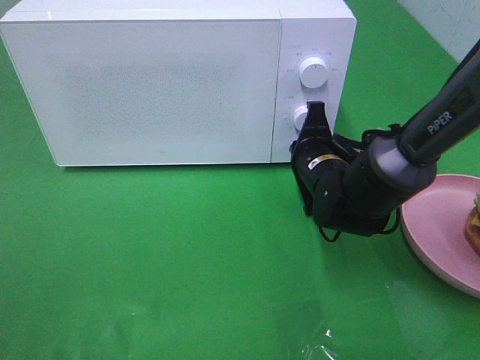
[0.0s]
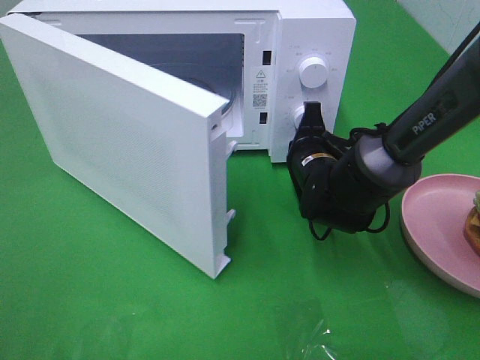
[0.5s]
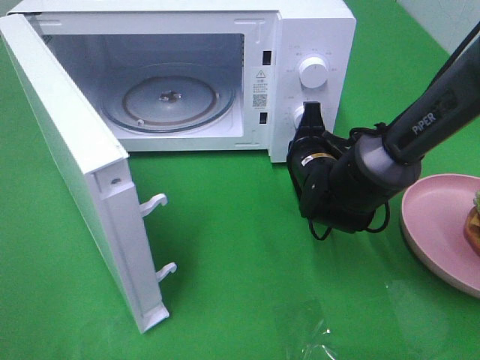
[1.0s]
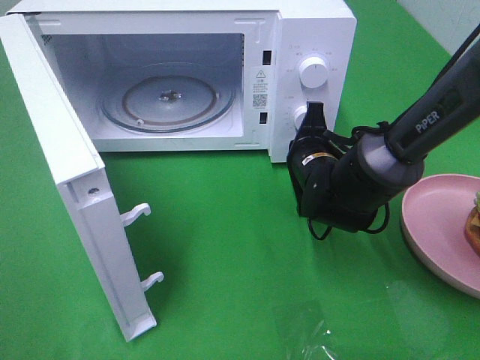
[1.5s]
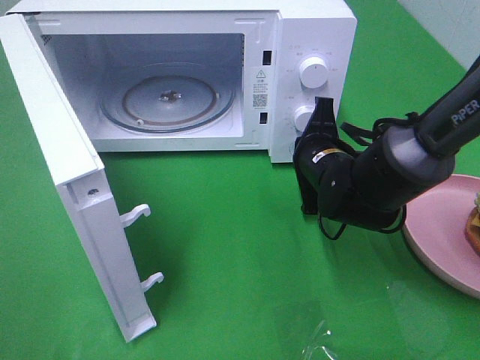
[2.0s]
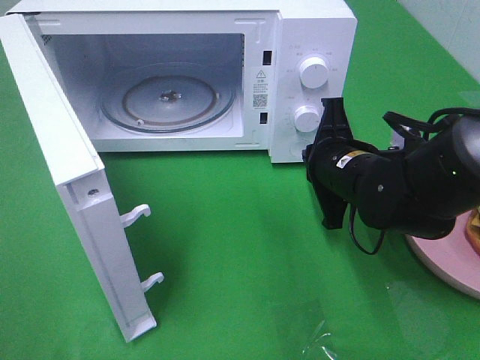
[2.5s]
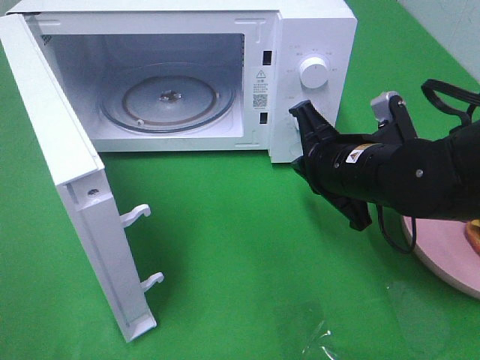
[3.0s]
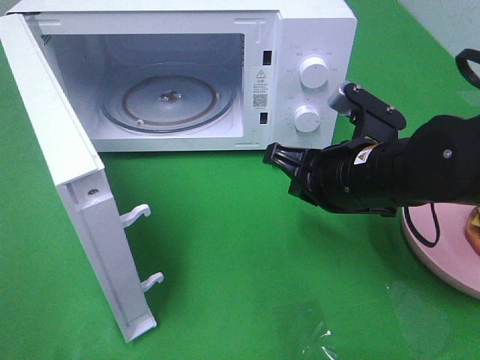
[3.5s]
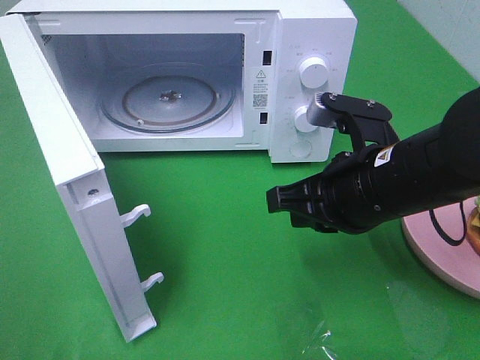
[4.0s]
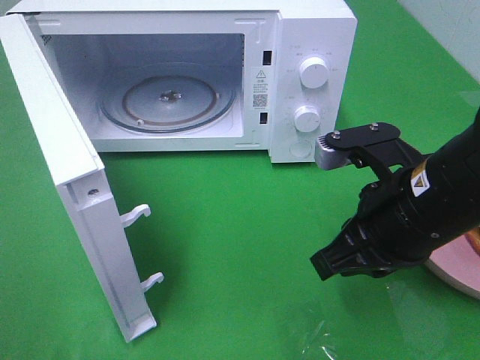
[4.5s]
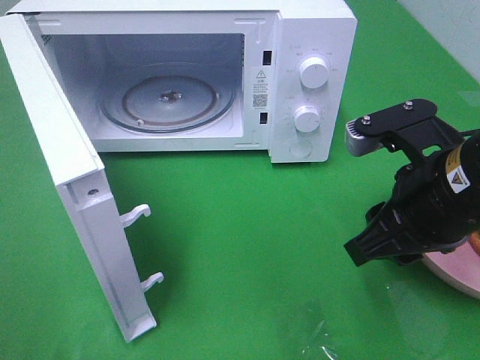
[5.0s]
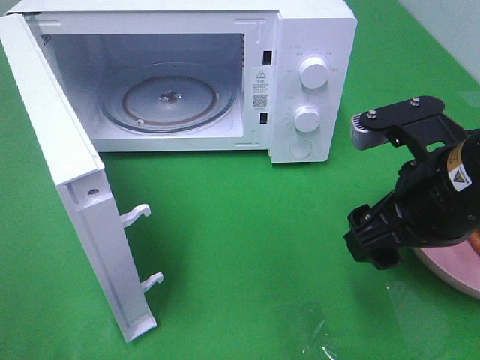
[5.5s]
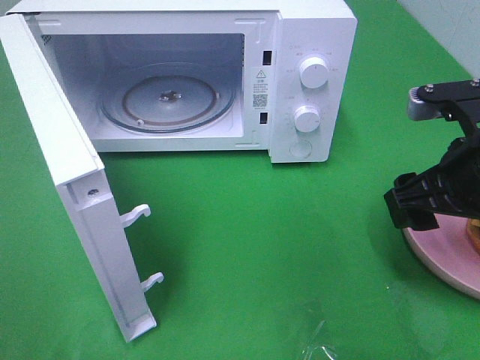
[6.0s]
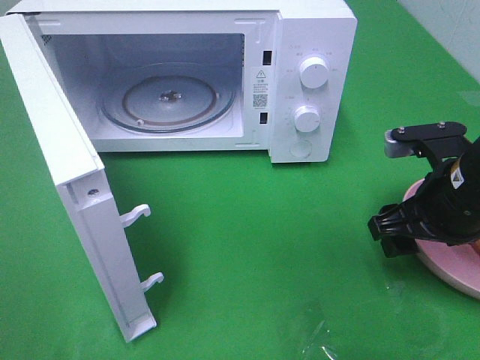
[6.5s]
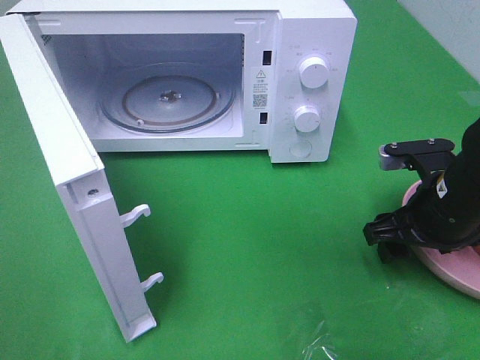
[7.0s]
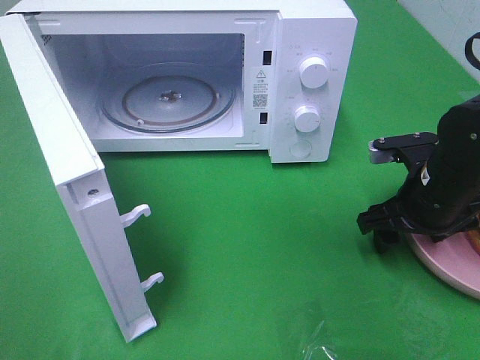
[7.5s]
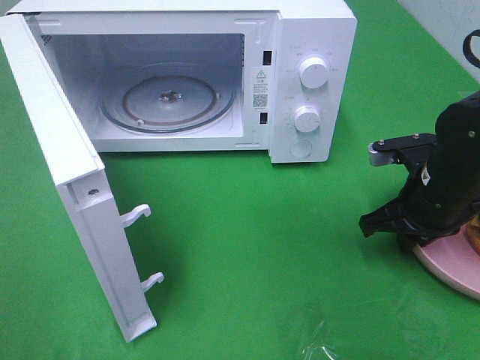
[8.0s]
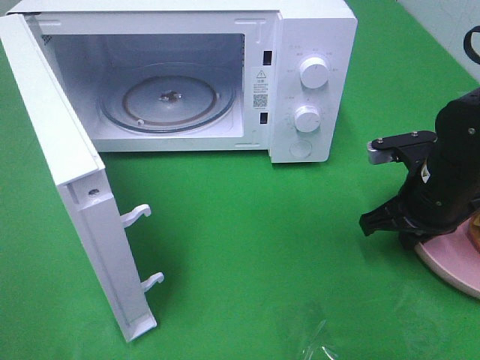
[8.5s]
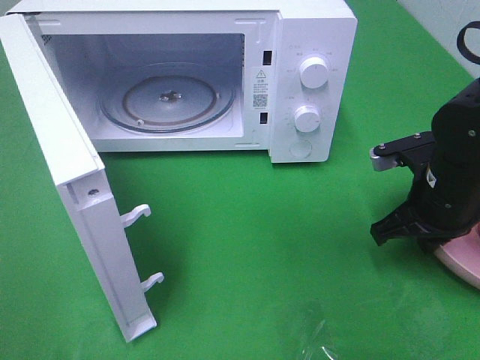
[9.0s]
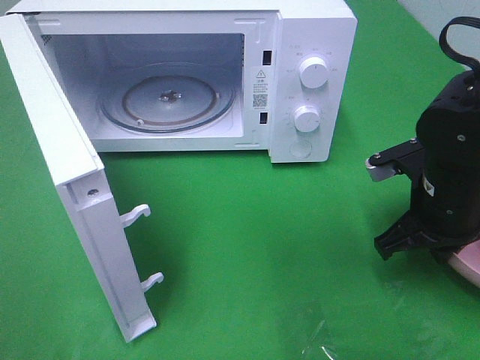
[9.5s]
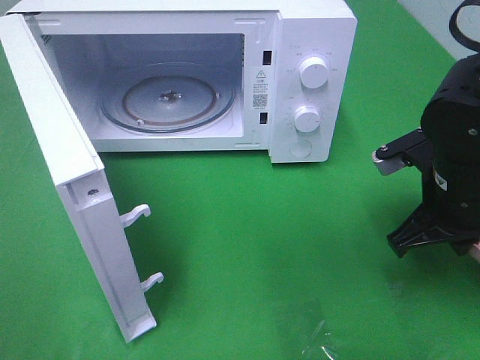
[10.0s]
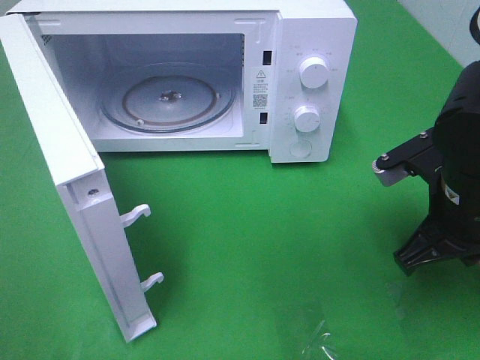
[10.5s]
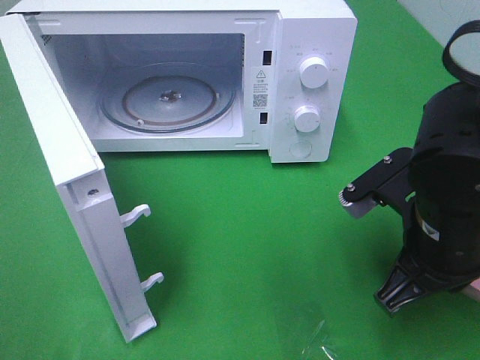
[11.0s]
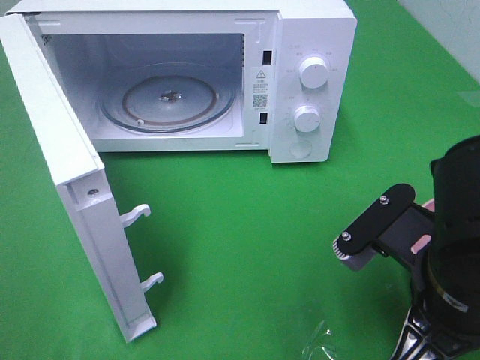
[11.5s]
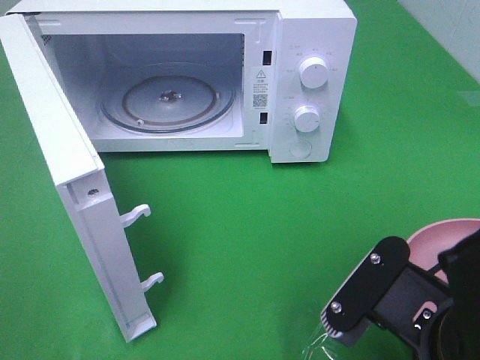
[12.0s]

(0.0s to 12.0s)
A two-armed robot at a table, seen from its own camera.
Task of the whole recording: Heat the burger.
Step, 0.0s - 2.0s: Right hand: press the switch.
Step, 2.5s - 8.0s: Right hand: grab the plate with the hamburger.
2.0s - 4.0s: The right gripper travels backward and upward by about 15 cm.
4.0s - 6.0s: The right gripper is displaced to the right by roughly 10 cm, and opens.
6.0s - 8.0s: The right gripper is displaced downward and forward by about 10 cm, and closes up.
8.0s - 10.0s: The right gripper ends up approximately 5 cm from where it was.
10.0s - 12.0s: The right gripper is displaced backward and to the left by approximately 20 cm.

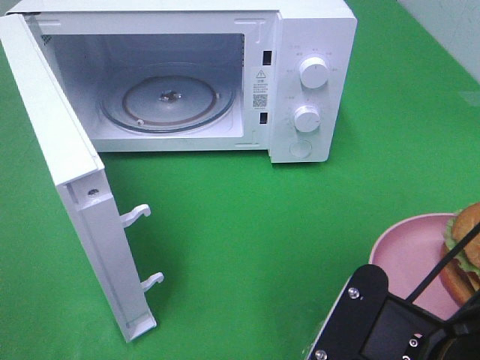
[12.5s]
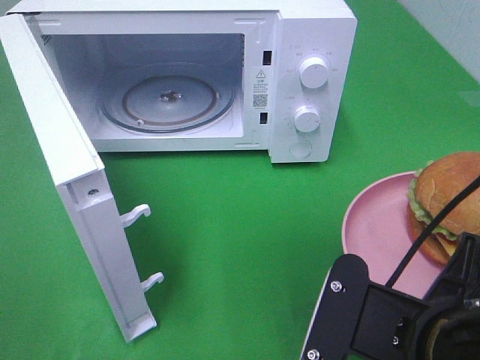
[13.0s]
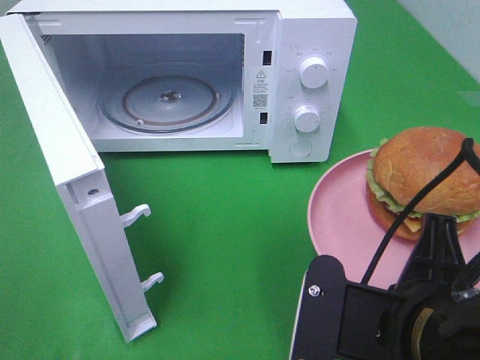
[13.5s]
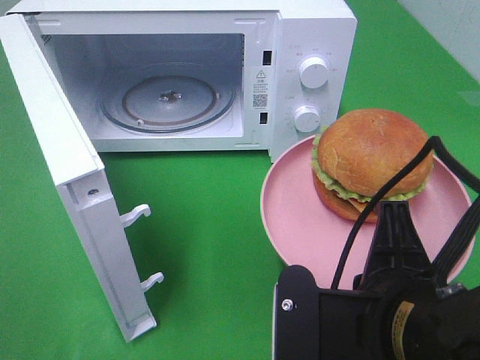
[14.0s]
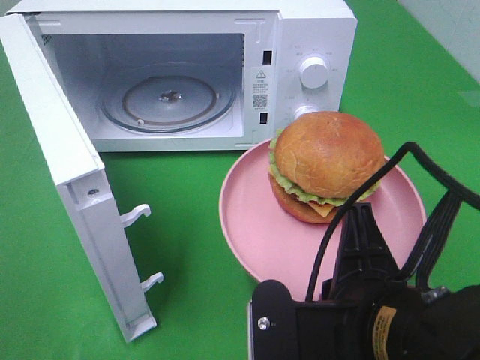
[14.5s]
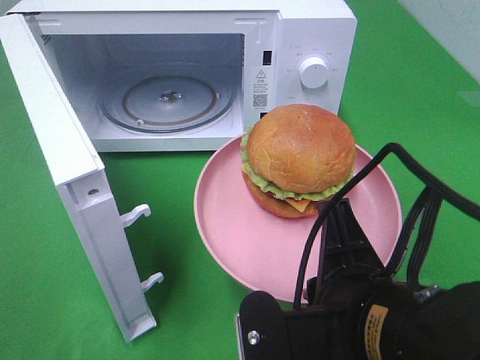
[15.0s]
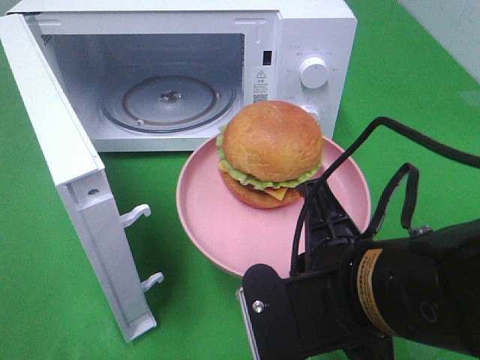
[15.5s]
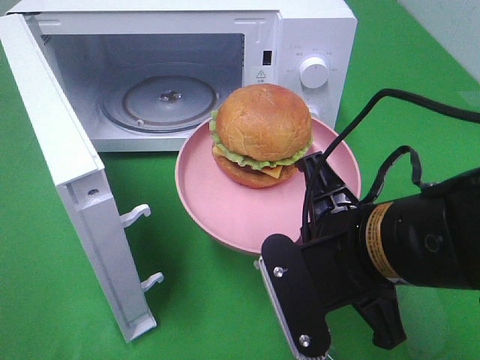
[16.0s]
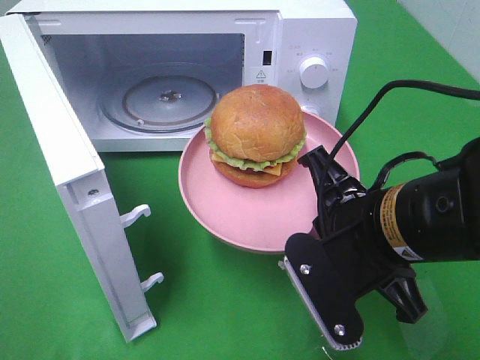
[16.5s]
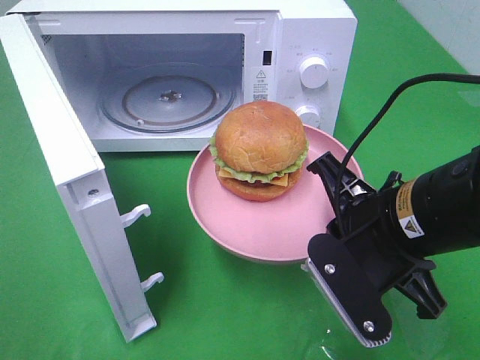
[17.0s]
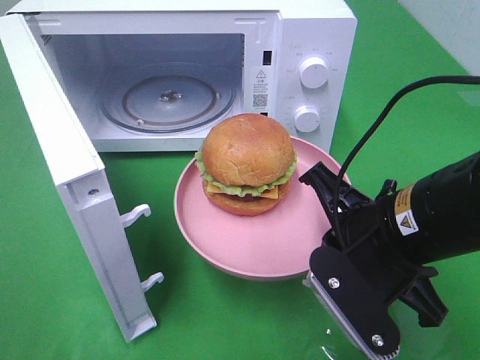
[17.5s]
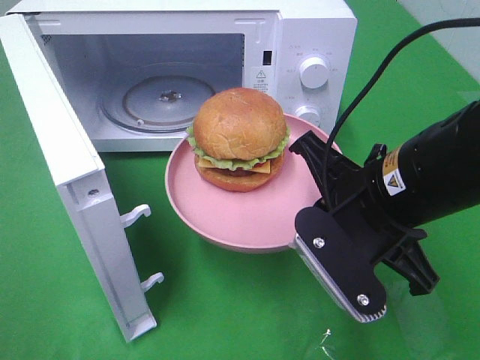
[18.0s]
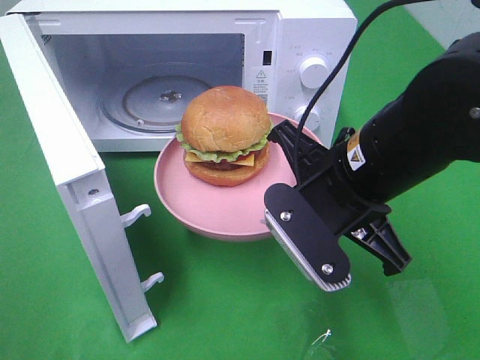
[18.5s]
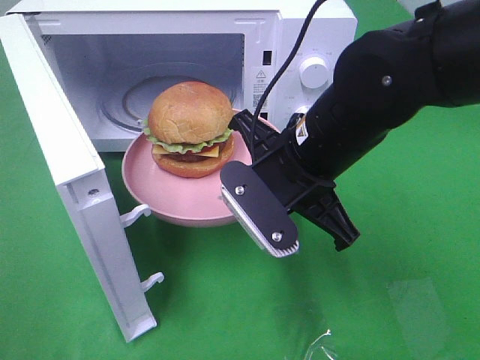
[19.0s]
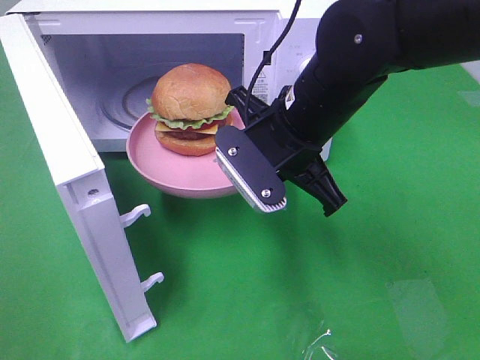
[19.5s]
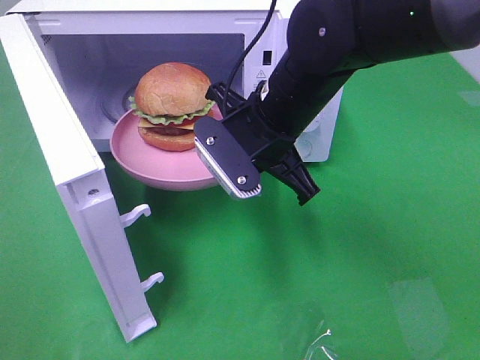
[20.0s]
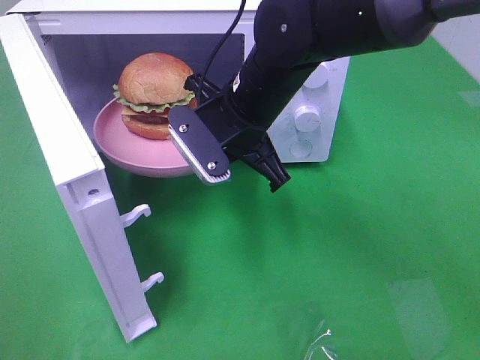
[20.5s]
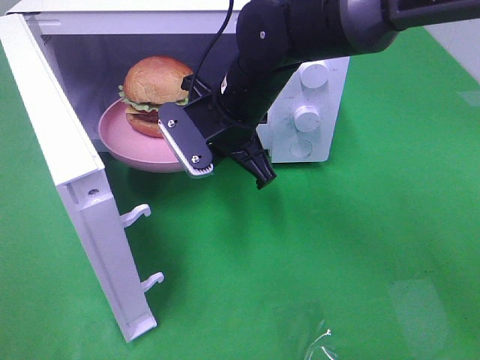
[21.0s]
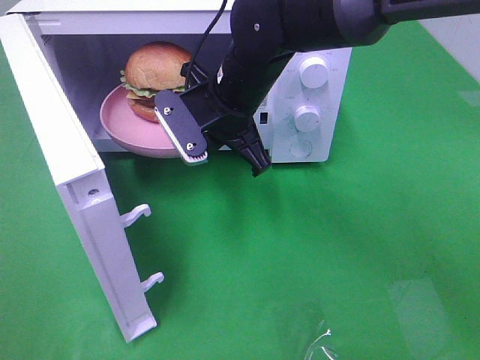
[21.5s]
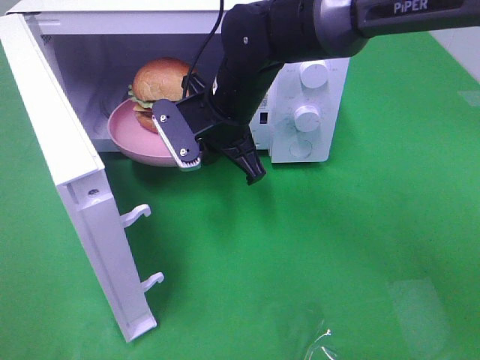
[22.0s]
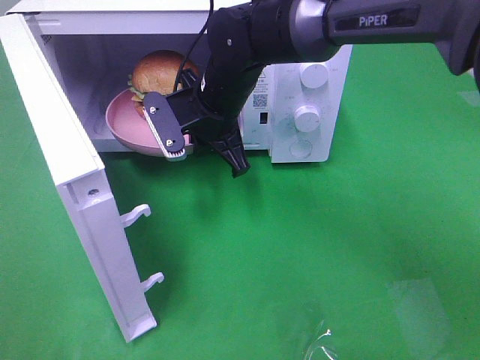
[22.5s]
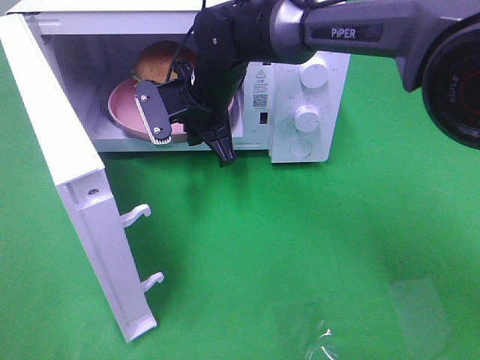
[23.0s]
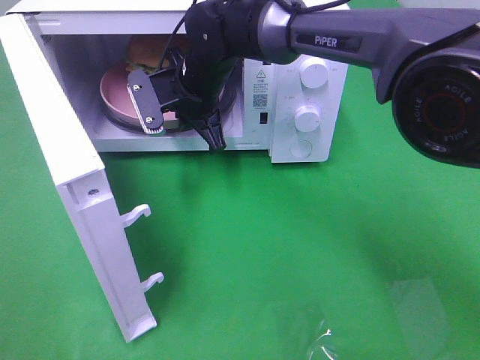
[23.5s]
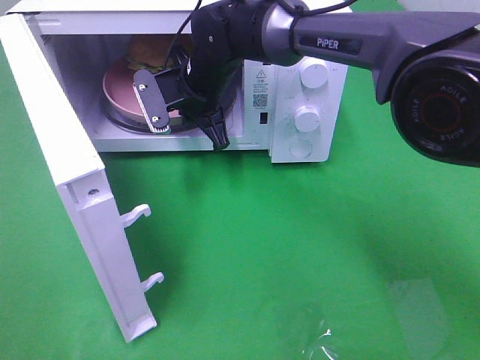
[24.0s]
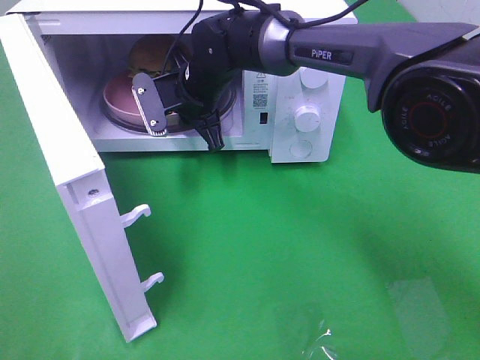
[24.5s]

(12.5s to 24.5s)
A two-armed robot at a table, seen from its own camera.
Task of the whole recording: Heat the burger.
14.5s - 16.5s: The right gripper is displaced forward by some 10 cm.
16.5s - 18.5s: The right gripper changes place by roughly 5 cm.
18.5s - 20.5s: The right gripper is displaced forward and to the left by approximately 15 cm.
20.5s - 22.5s: The right gripper moves forward, some 5 cm.
22.5s - 24.5s: The right gripper travels forward by approximately 5 cm.

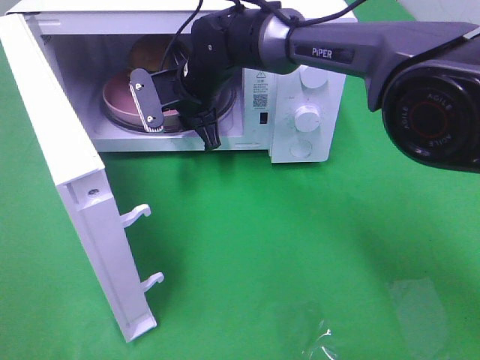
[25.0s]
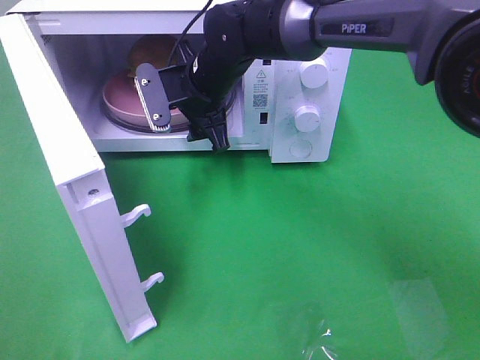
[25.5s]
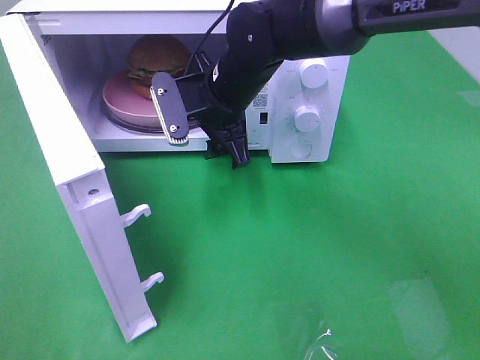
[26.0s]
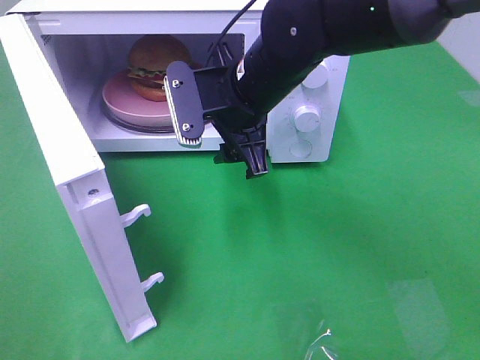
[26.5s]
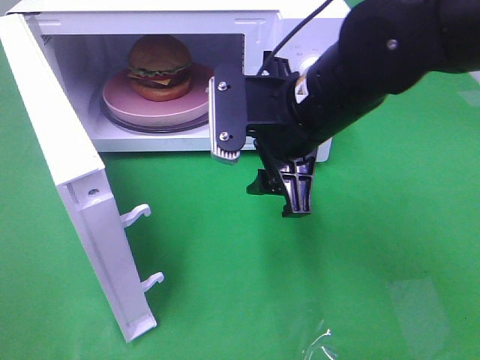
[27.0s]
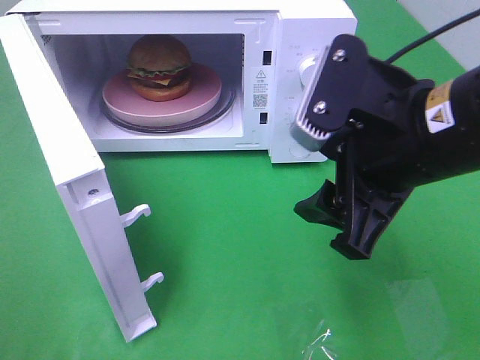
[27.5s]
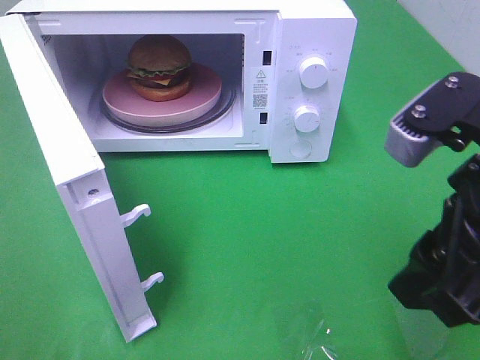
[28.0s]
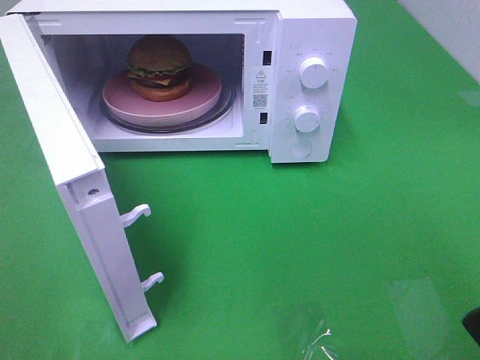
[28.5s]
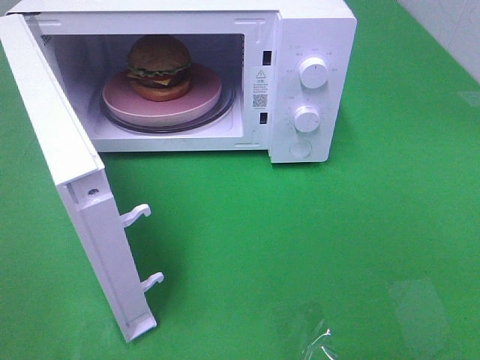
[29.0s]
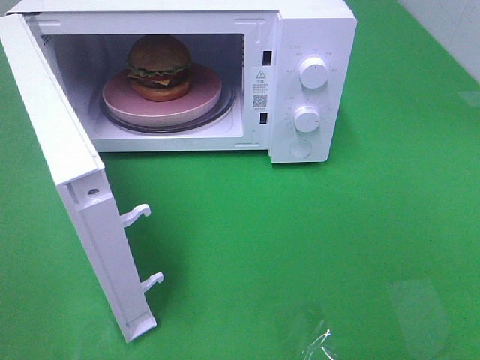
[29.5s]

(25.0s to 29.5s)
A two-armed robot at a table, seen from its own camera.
Task of the whole recording: Heat the burger.
25.0s - 27.0s: The right gripper is displaced backward and to the right by about 20 cm.
27.0s - 29.5s: The right gripper is displaced backward and to the right by approximately 35 cm.
